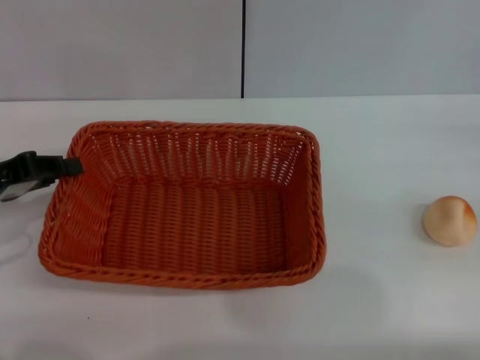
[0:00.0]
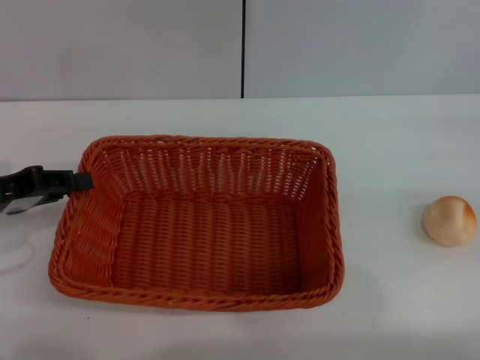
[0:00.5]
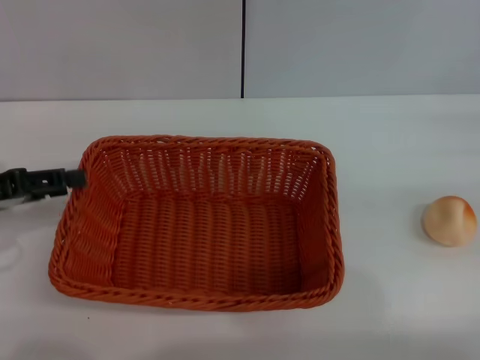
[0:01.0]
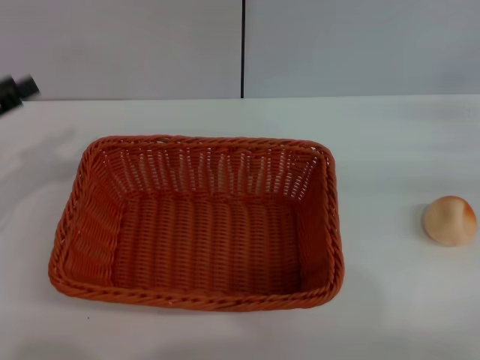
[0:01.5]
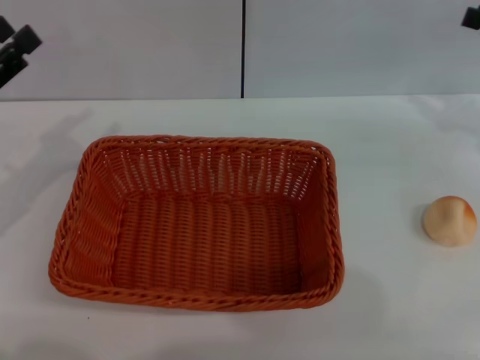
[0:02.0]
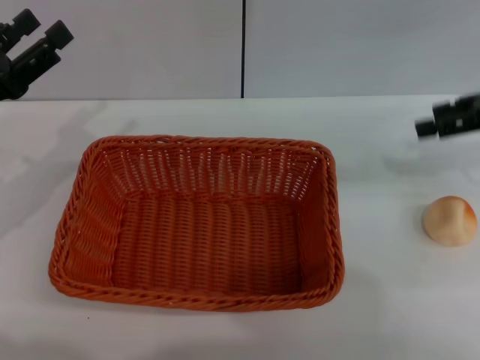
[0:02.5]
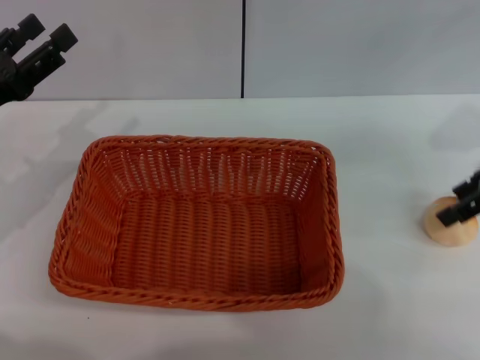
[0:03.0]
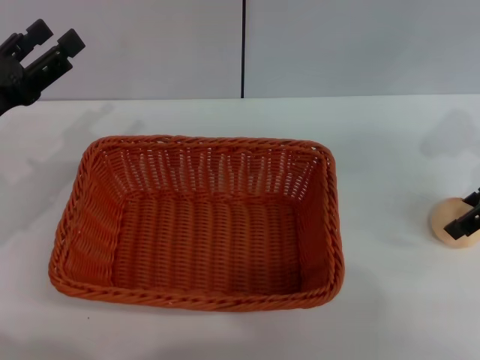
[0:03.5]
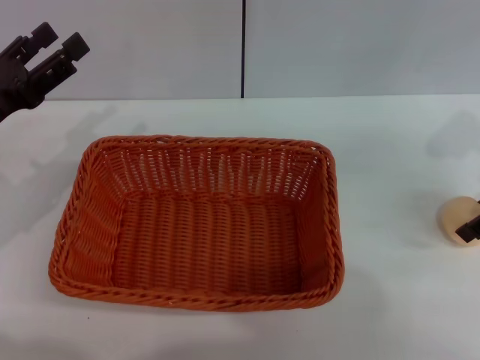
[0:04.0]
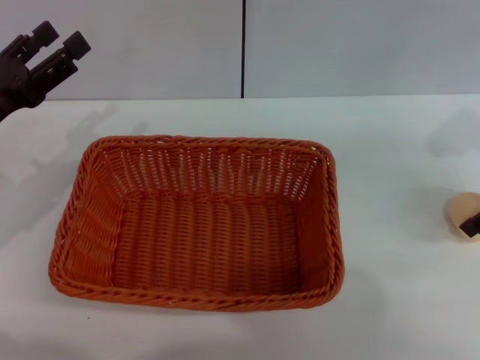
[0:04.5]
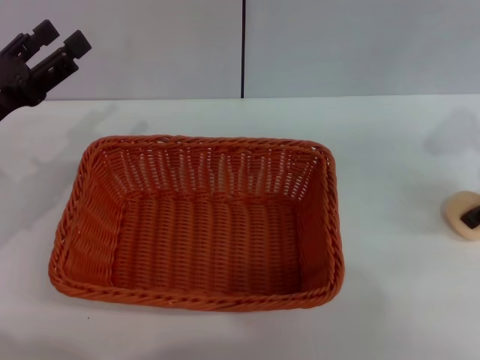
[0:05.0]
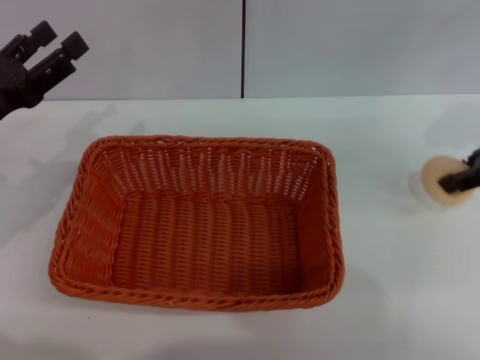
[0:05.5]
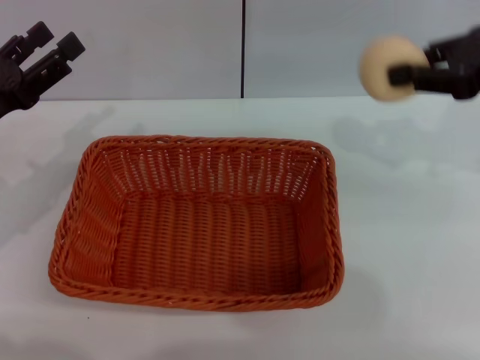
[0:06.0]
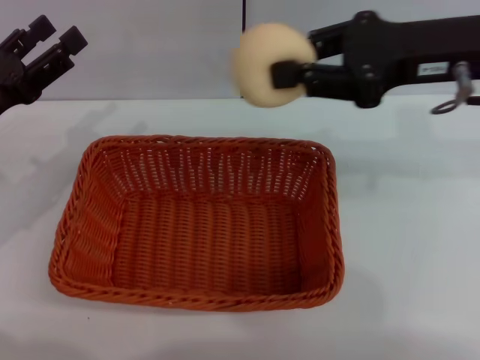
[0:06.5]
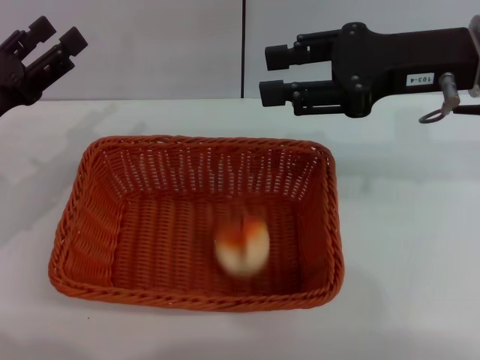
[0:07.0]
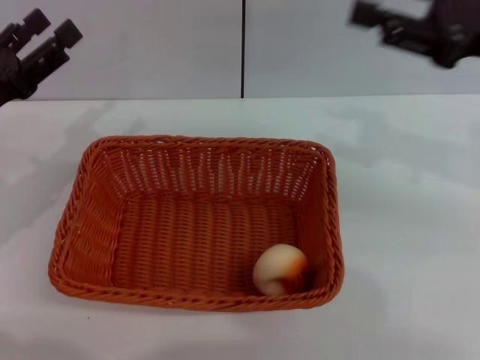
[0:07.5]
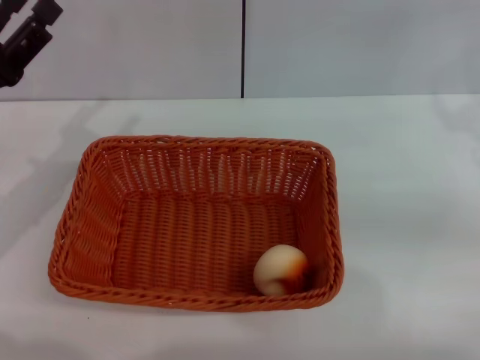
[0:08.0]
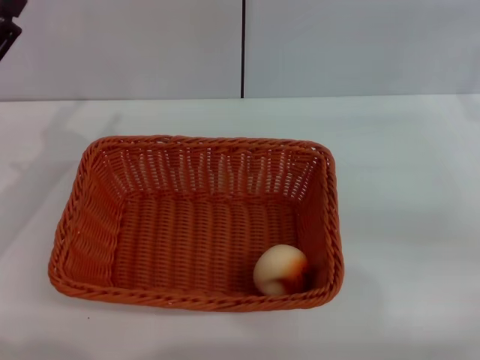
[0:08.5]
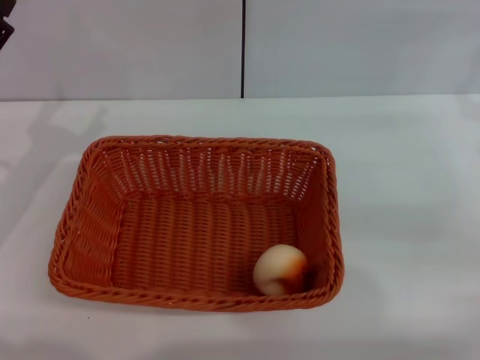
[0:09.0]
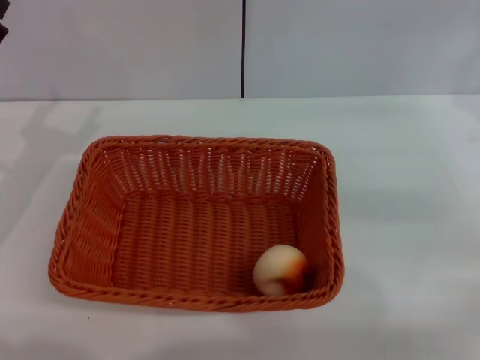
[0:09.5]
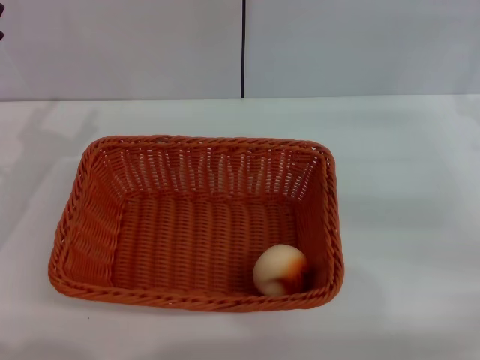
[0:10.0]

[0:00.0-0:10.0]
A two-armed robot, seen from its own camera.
Step, 0:01.5 to 0:05.5: Pick up the egg yolk pastry with the right gripper.
Step, 0:06.0 to 0:07.0: Place the egg yolk pastry into the basket with the right gripper.
0:00.0 to 0:02.0: The right gripper goes some 10 cm upward, to the left and forward. The left gripper opens its fingers.
0:02.0 to 0:04.0: The right gripper goes some 5 cm to the left.
0:04.0 to 0:06.0: The right gripper shifts about 5 cm upward, and closes its fingers.
0:06.0 to 0:08.0: The right gripper moves downward and to the right, roughly 10 cm, and opens.
